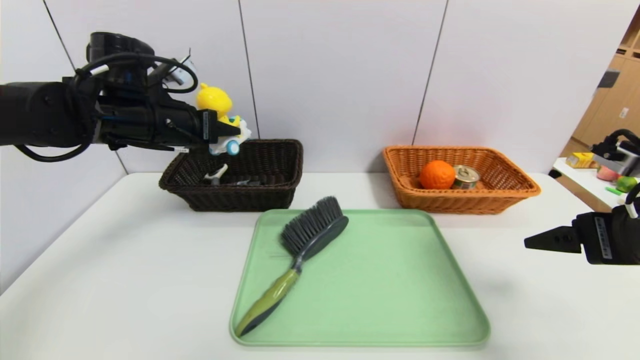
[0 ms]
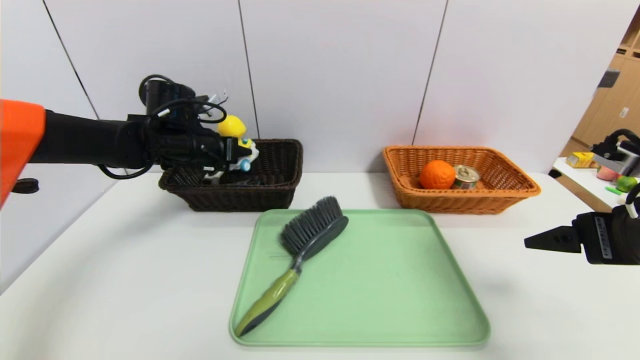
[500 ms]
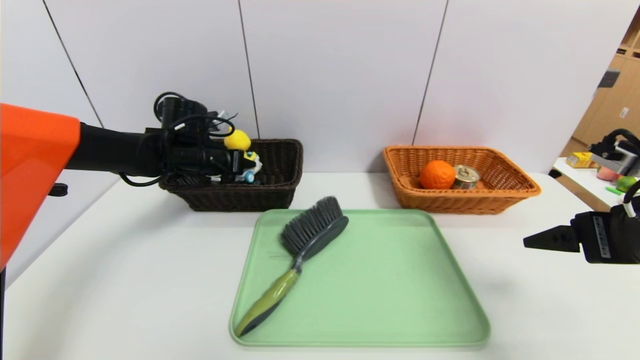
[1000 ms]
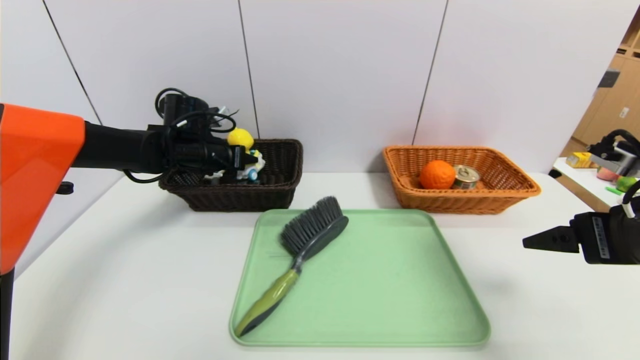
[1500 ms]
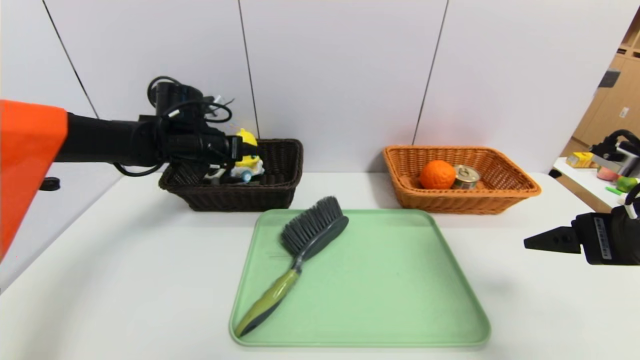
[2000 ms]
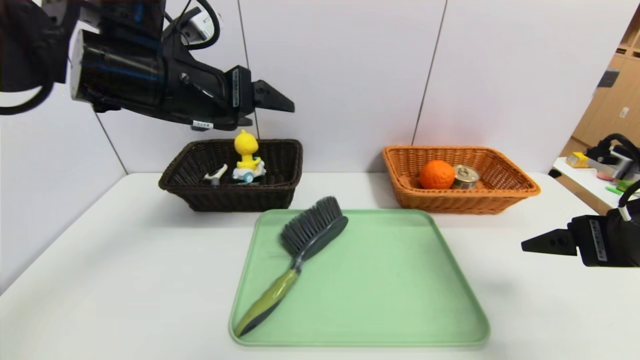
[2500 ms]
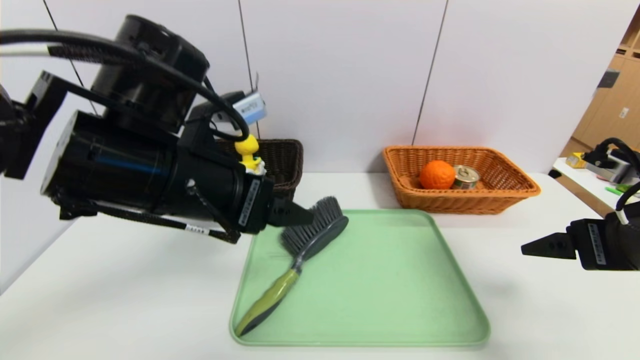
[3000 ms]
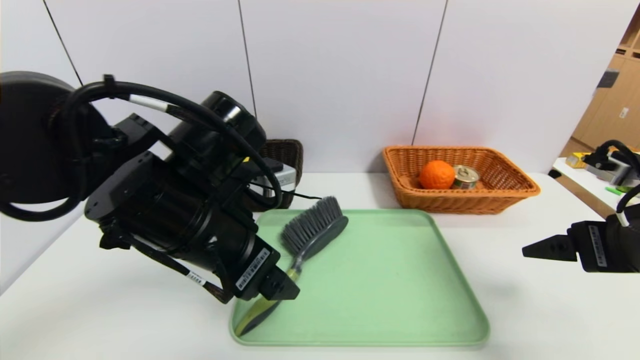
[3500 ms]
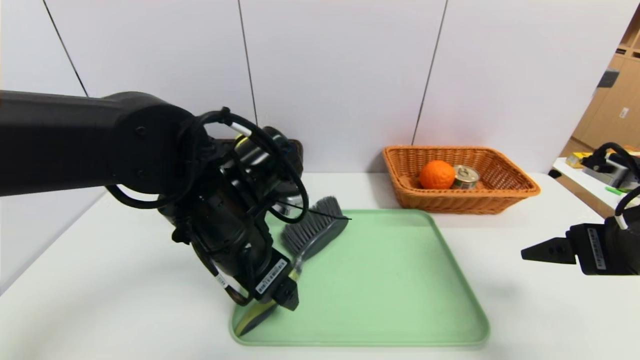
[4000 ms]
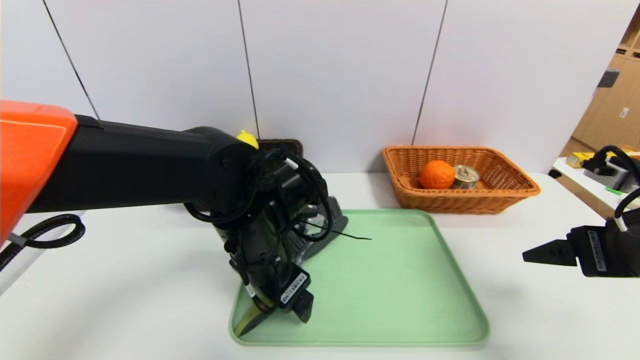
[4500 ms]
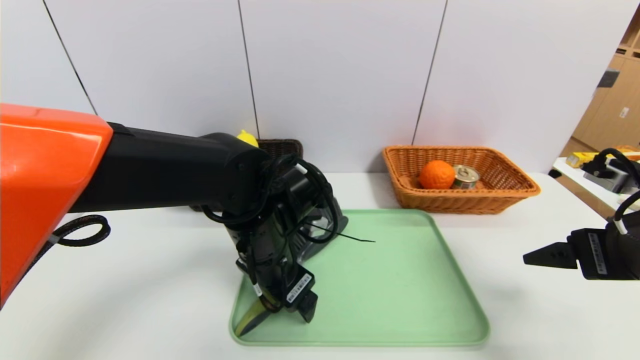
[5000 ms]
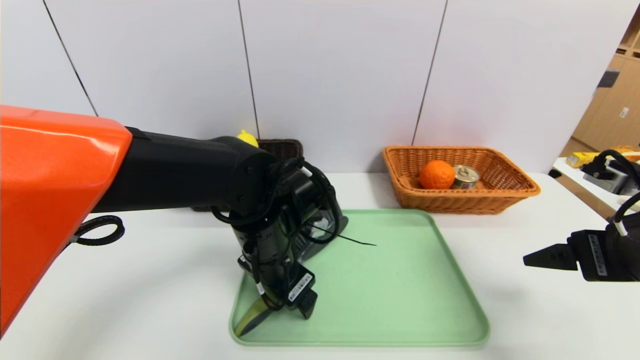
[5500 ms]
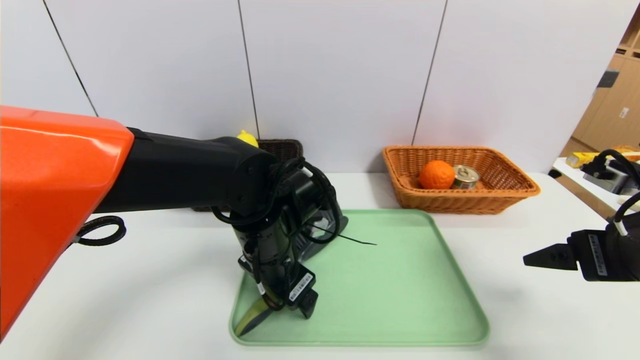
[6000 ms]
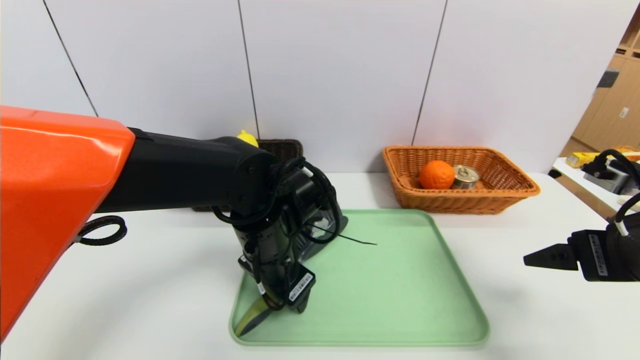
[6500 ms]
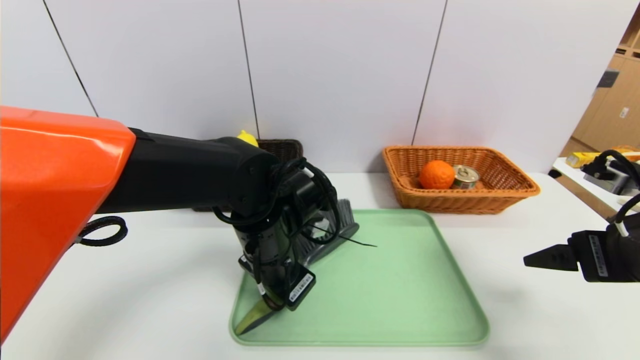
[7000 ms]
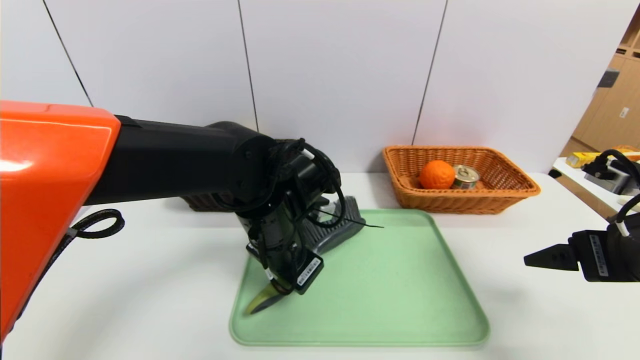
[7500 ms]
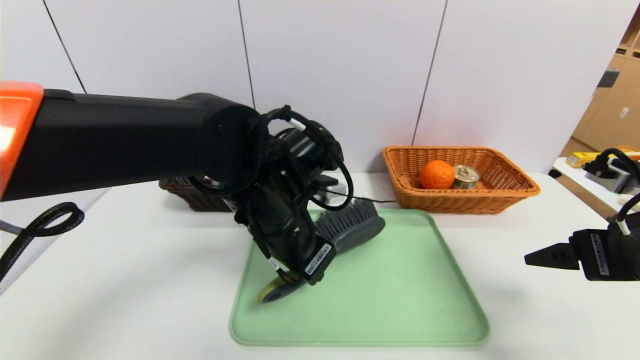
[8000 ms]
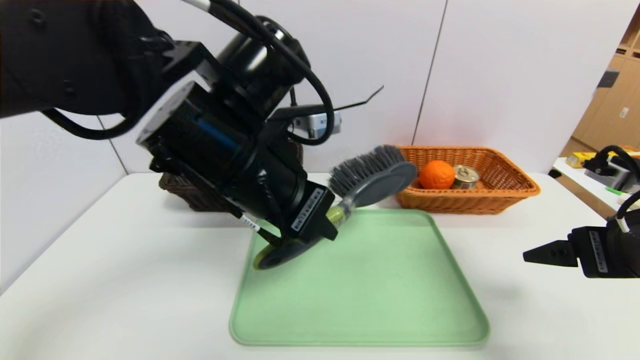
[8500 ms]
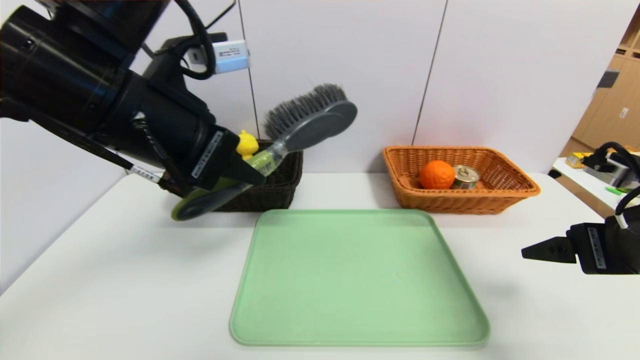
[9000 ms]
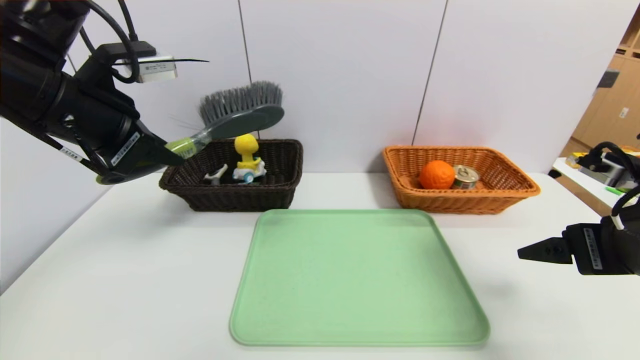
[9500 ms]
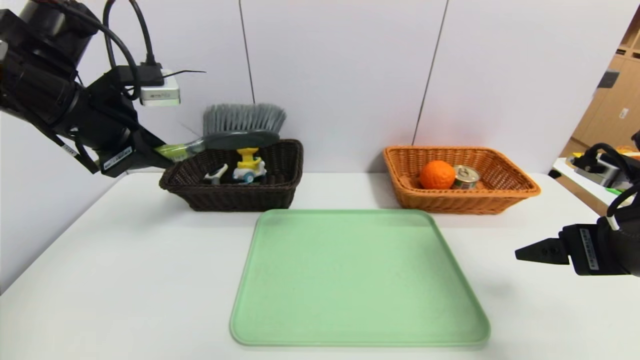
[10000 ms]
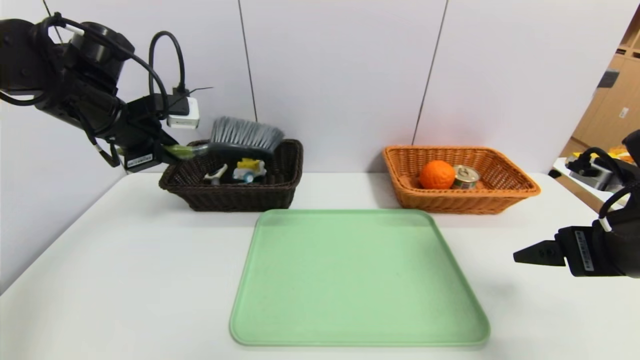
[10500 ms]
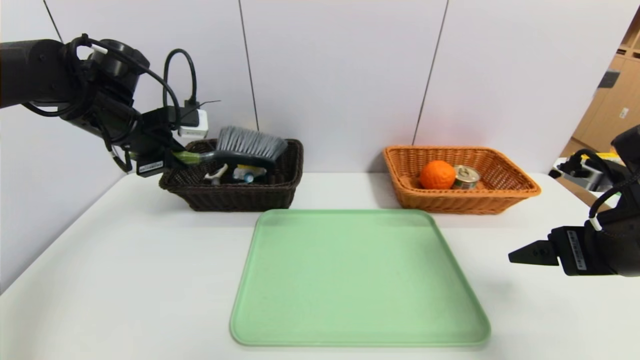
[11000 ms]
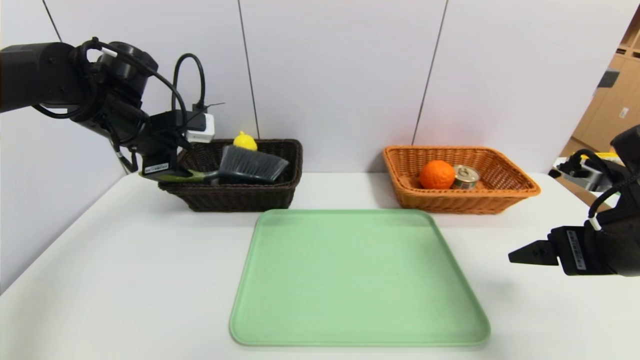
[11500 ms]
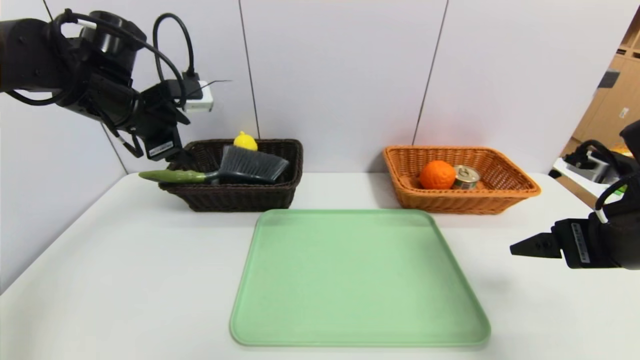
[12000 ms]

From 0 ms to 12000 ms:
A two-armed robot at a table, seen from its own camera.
Task of the whole recording: place the food in the right basket with the right gripper, and place the non food items in the left basket with the left gripper.
Step, from 0 ms to 2000 ms: Grasp the duck toys and put it in the left basket.
From 0 ms to 2000 ms: The left gripper is displaced forward by some 5 cm, and opens its fingers.
From 2000 ms to 4000 ms: The left gripper moves backward and to the right, roughly 25 cm.
From 4000 ms to 6000 ms: The left gripper shifts some 5 cm downward.
From 6000 ms to 8000 ms: The left gripper travels upward by roughly 5 cm, and closes.
From 8000 ms to 10000 ms: The left gripper travels to the left and upward by roughly 25 cm.
From 10000 ms to 12000 ms: The left gripper heads forward, covering about 5 cm, and opens up.

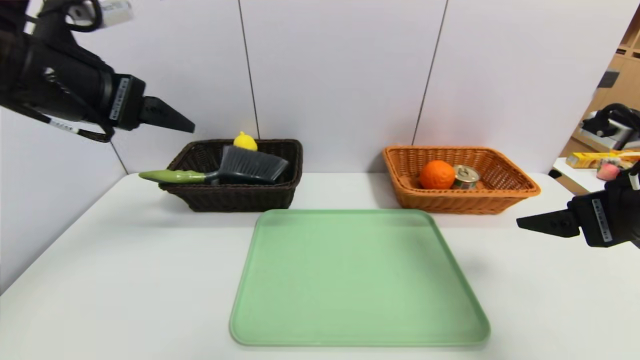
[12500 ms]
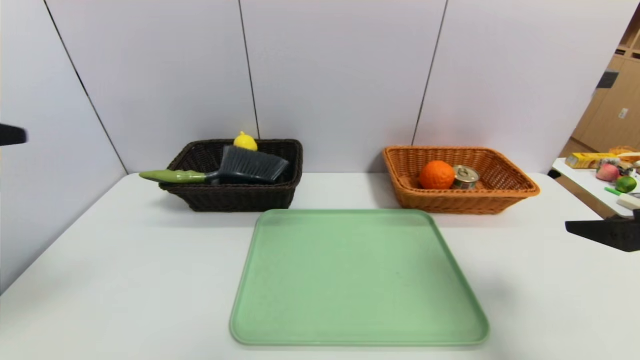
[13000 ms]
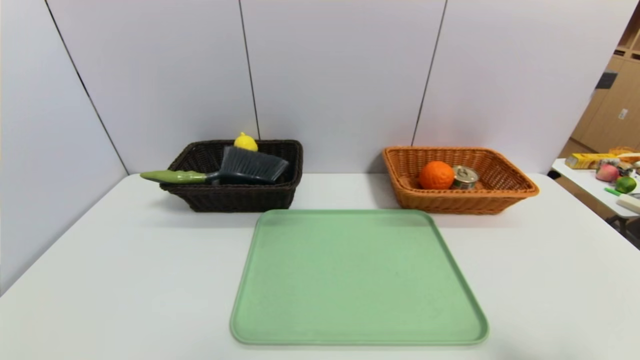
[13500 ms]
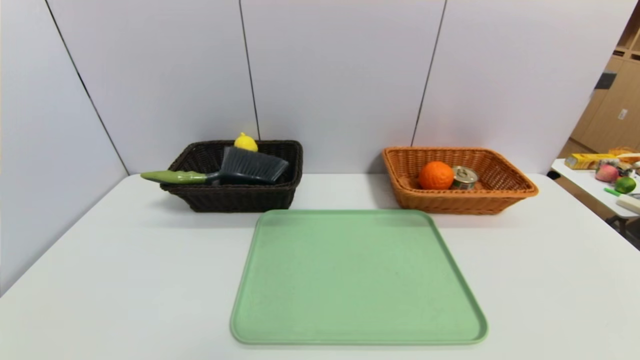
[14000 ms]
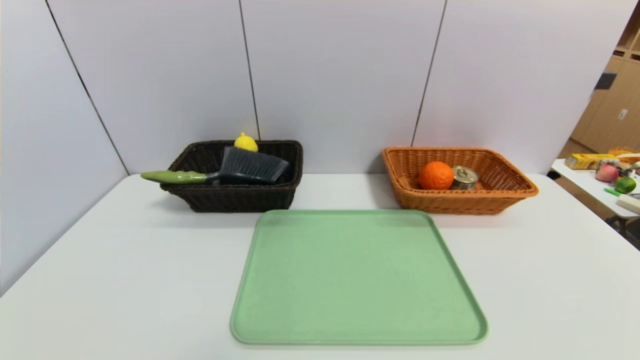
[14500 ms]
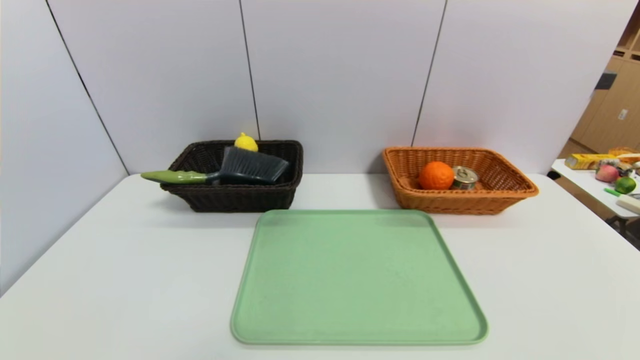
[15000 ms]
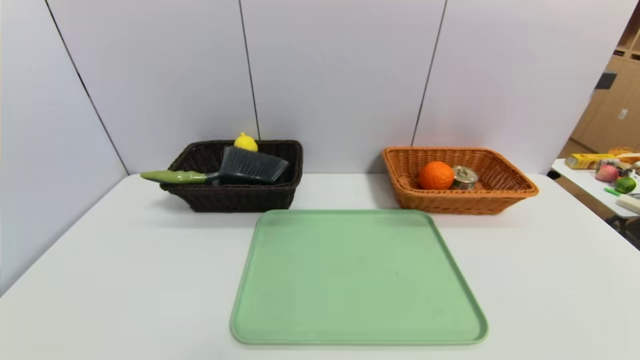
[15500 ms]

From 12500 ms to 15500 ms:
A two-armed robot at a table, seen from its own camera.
Task of the whole recording: place the food in the right basket with the right gripper, and place the non food items in the left basket with the left gripper.
From 12500 ms to 14000 ms: The left gripper shifts approximately 40 cm backward and downward. Meanwhile the right gripper is displaced backward by some 25 cm.
